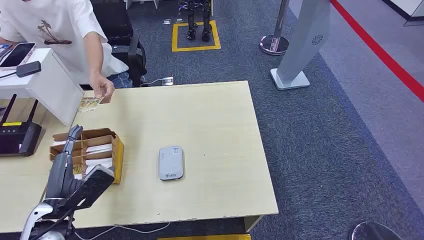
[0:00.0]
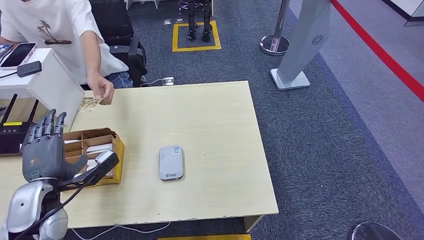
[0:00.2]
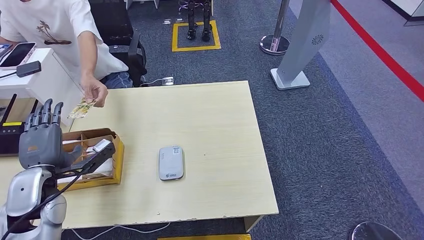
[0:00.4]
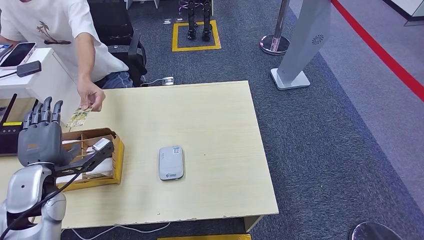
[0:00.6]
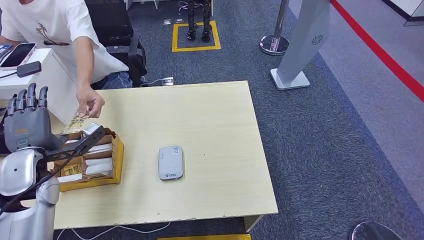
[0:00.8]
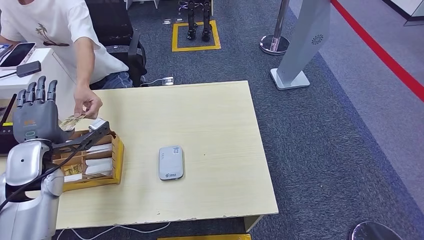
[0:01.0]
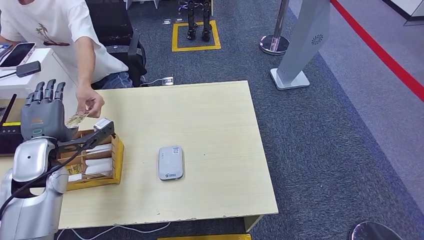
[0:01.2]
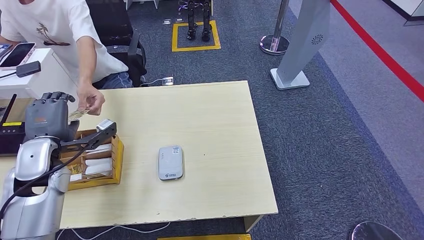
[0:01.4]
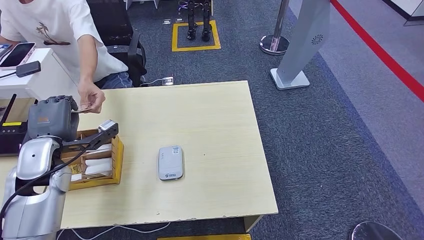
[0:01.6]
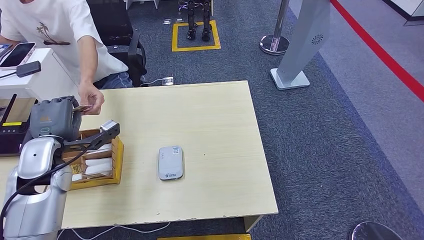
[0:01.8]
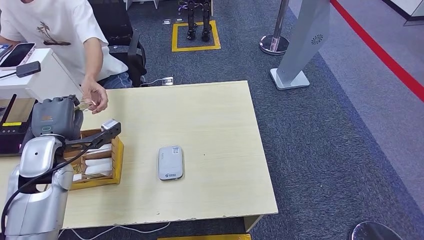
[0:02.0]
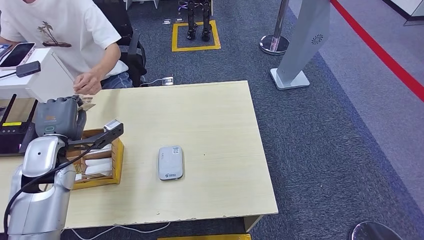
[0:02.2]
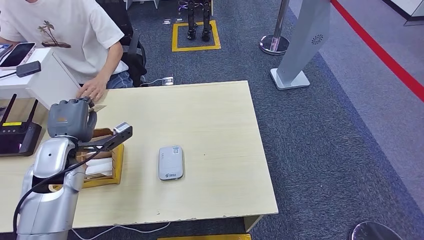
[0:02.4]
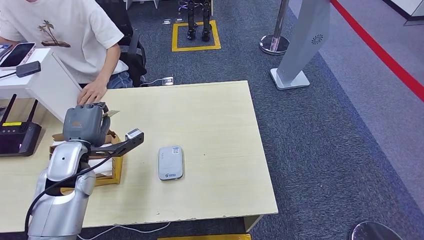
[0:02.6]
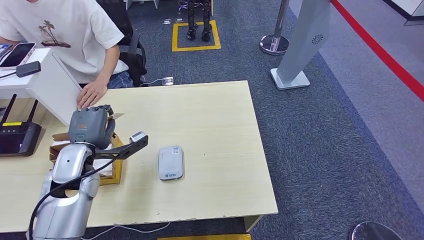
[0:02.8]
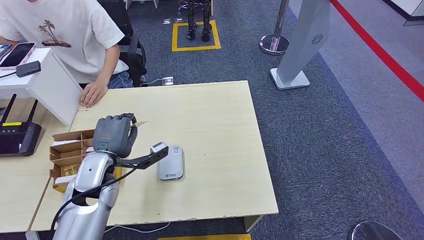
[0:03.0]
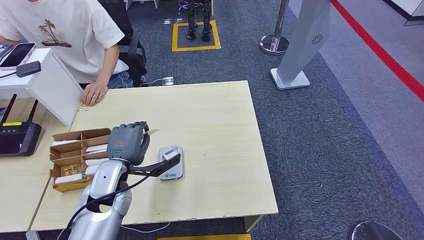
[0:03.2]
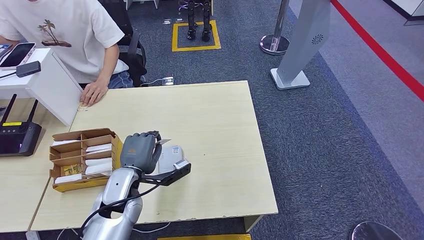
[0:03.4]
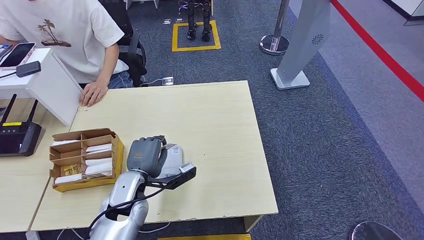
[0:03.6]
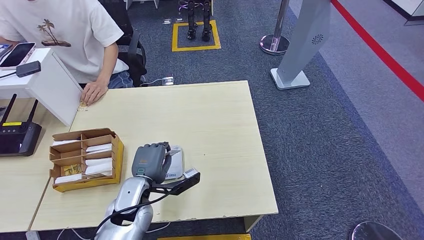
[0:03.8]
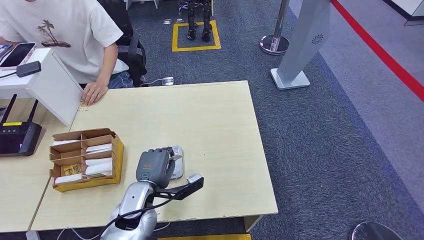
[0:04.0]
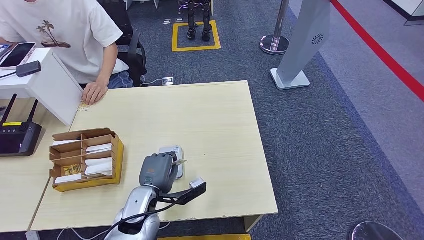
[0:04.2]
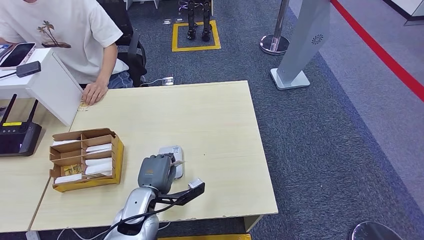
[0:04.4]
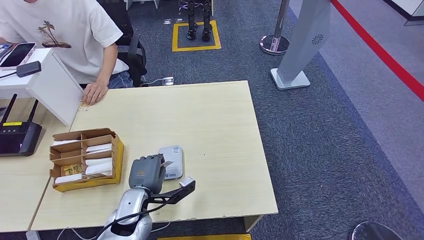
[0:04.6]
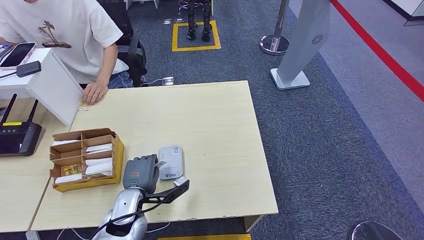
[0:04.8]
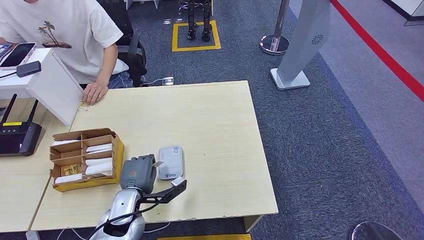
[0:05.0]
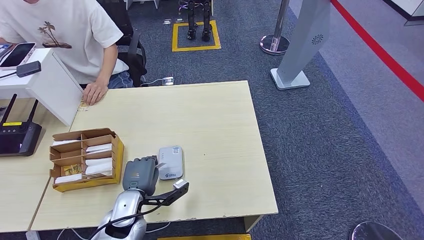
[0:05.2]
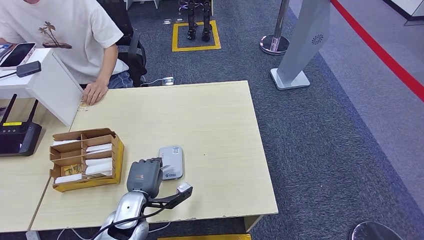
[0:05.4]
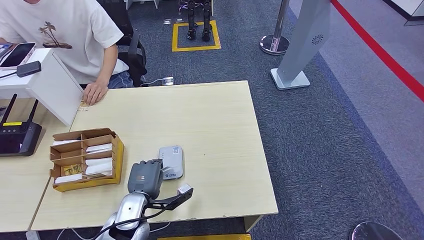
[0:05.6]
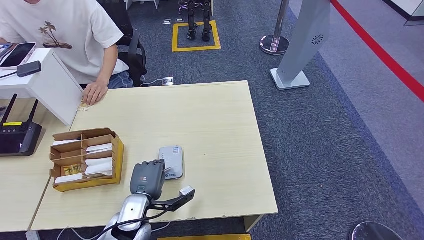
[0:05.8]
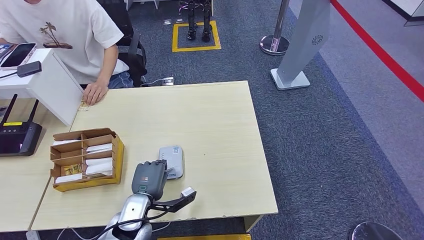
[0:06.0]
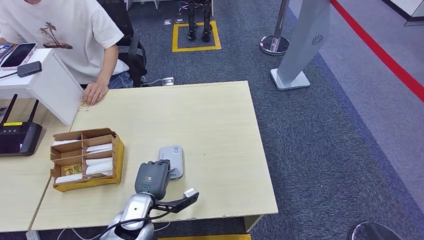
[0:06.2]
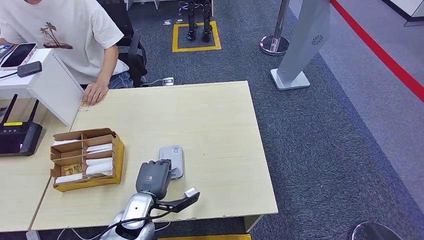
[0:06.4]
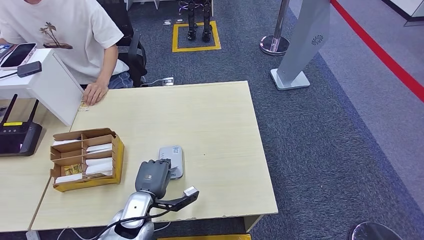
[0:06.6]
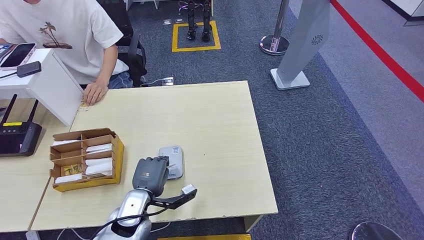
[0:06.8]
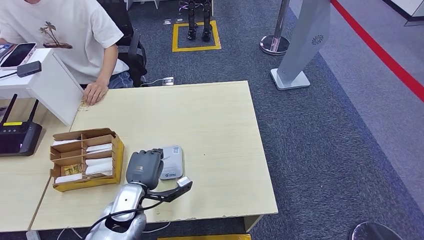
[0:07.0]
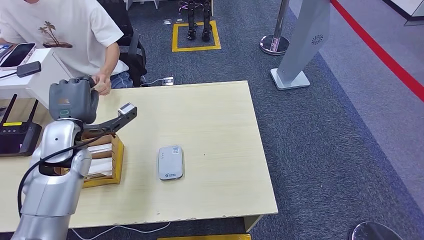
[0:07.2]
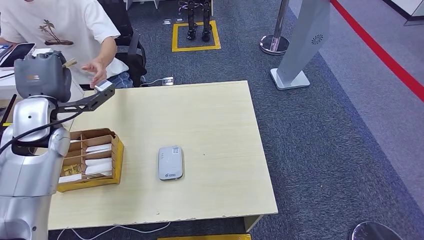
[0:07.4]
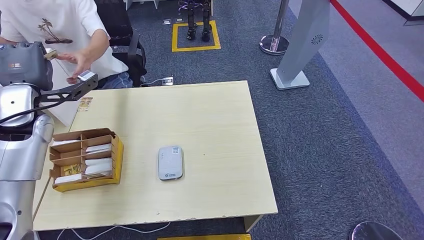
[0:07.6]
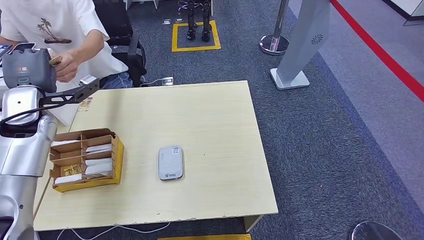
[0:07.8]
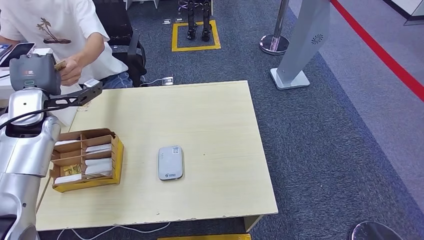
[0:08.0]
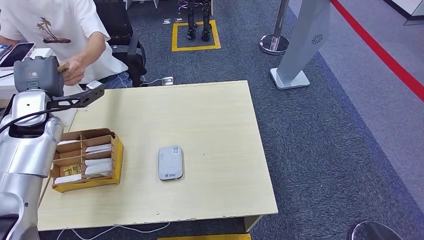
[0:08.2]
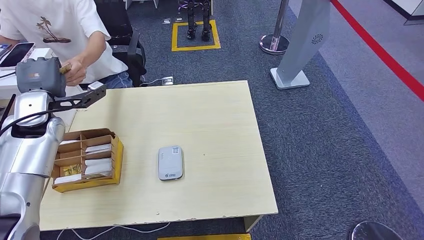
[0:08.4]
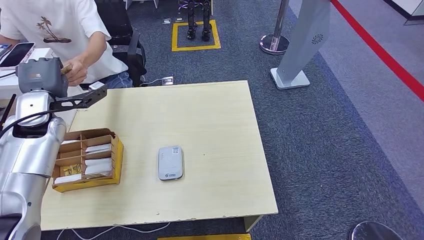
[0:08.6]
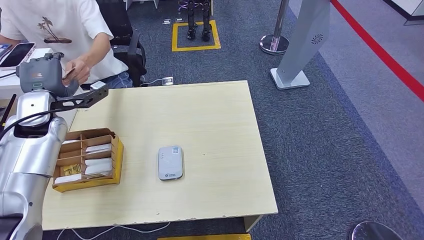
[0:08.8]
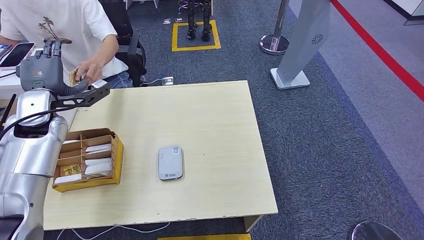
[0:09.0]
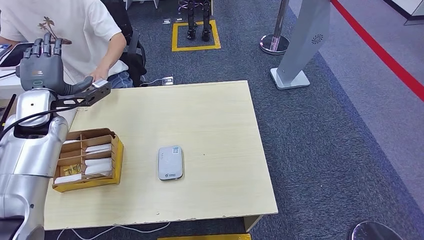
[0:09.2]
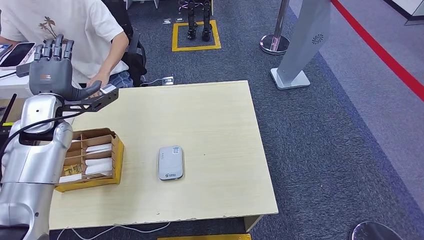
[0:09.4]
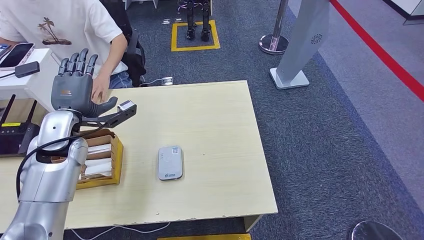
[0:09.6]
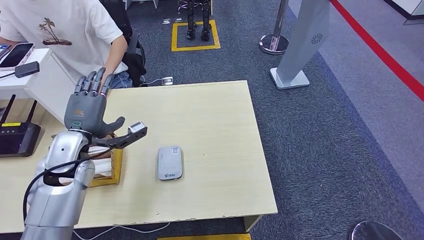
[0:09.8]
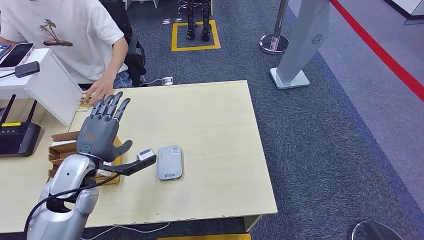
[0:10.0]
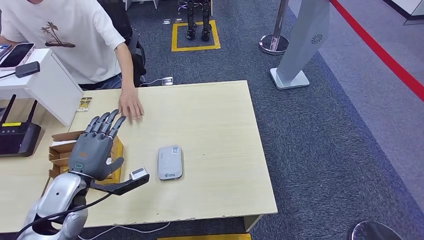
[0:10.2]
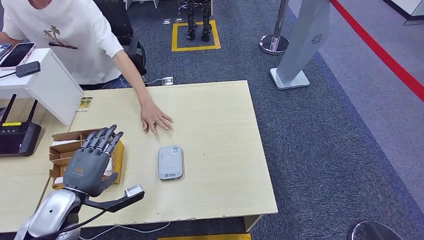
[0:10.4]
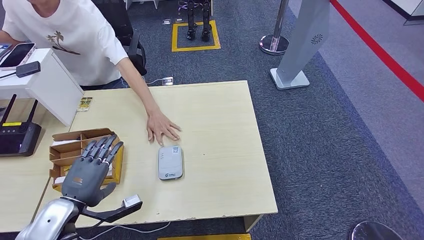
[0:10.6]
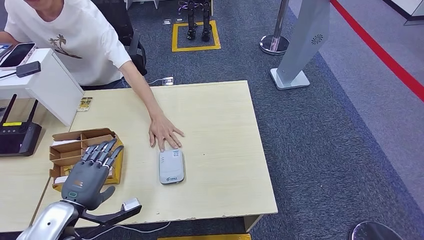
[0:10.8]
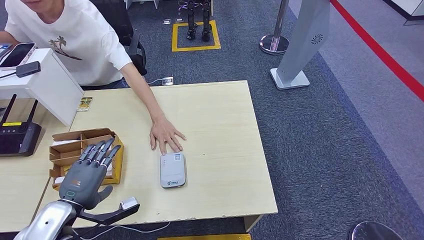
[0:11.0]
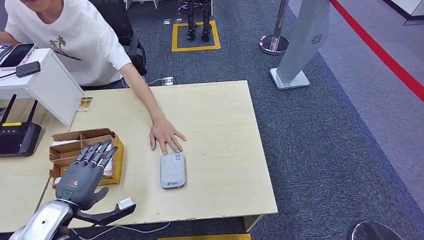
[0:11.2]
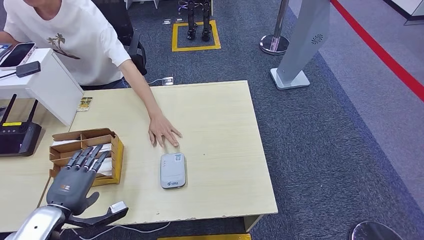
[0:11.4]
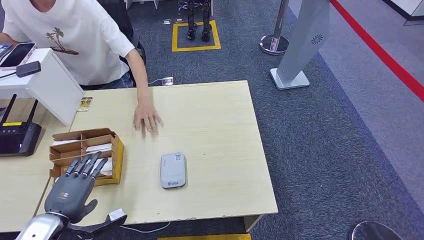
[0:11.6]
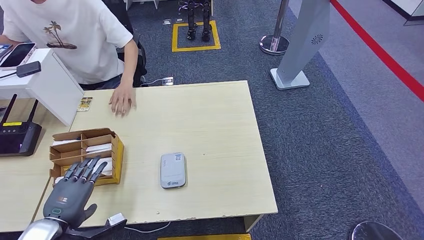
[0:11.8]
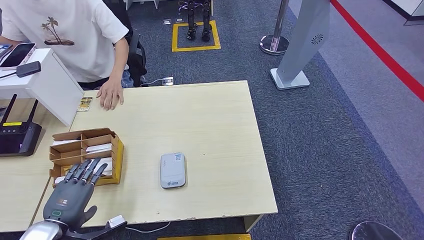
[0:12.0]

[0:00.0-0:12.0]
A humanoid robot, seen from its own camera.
Step, 0:00.0 to 0:03.4: Take the ID card from the person's hand.
Step, 0:03.6 to 0:05.6: Place the ID card on the card reader.
Step, 0:05.8 to 0:08.6: Hand the ID card to the person.
0:01.6 to 0:03.0: The left hand heads to the right, covering some 10 cm.
0:03.0 to 0:04.4: The left hand goes some 15 cm to the right, downward and backward.
0:04.4 to 0:06.0: The hands move only a little.
0:06.0 to 0:07.6: The left hand heads upward, to the left and forward, covering some 35 cm.
0:07.6 to 0:09.0: The hands move only a little.
0:09.0 to 0:10.4: The left hand moves backward and downward, approximately 25 cm.
0:10.4 to 0:12.0: The left hand travels backward by roughly 5 cm.

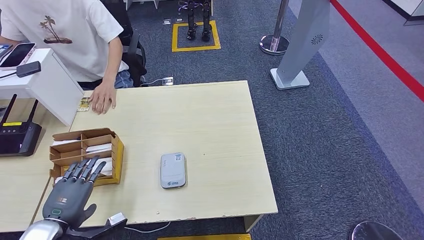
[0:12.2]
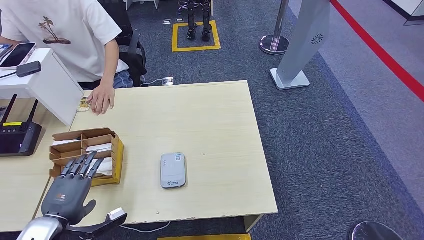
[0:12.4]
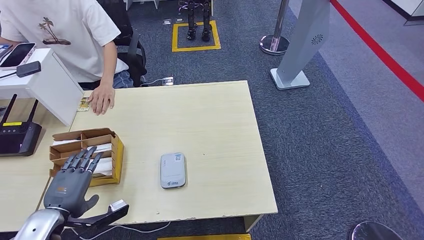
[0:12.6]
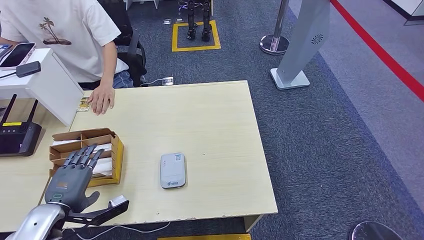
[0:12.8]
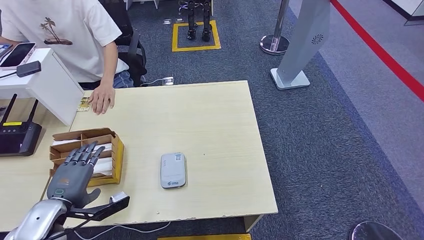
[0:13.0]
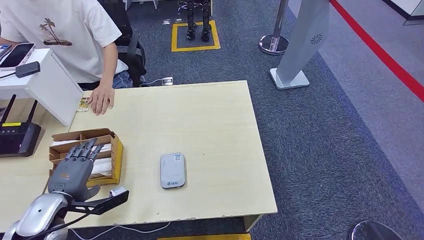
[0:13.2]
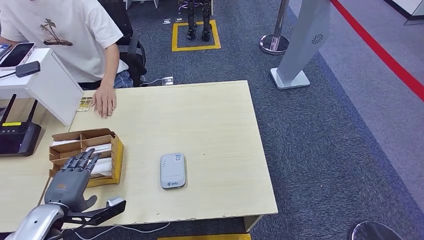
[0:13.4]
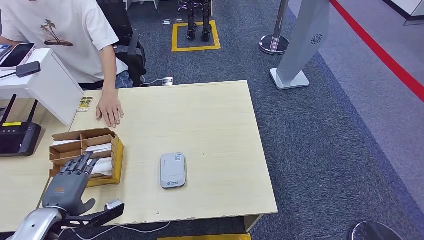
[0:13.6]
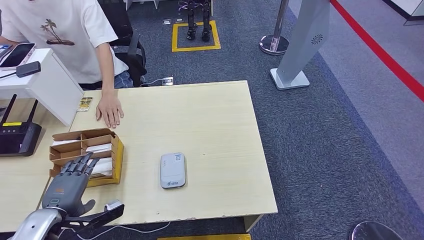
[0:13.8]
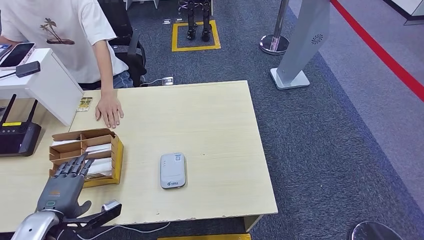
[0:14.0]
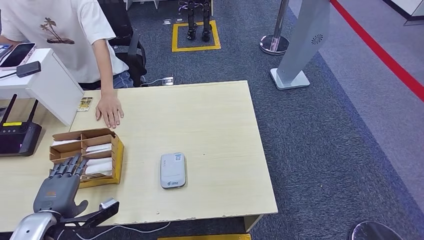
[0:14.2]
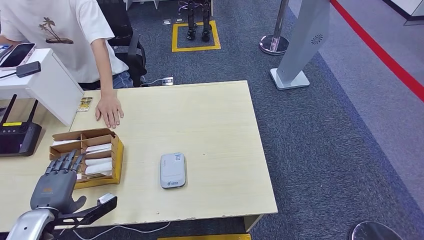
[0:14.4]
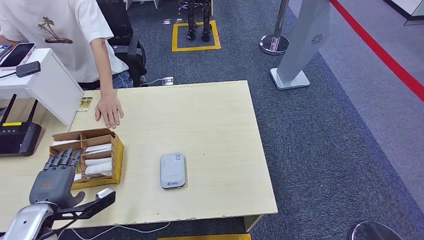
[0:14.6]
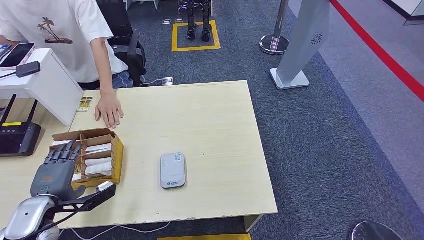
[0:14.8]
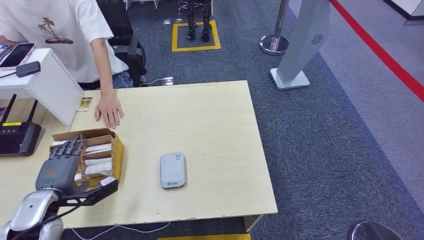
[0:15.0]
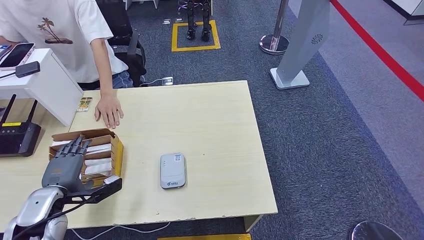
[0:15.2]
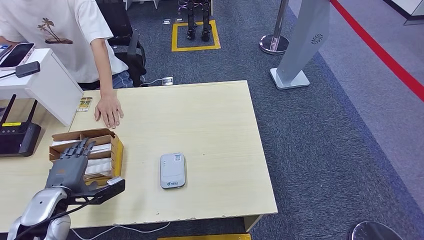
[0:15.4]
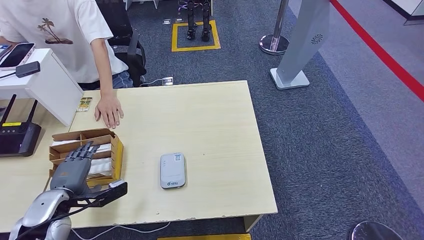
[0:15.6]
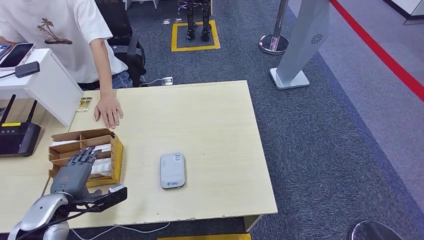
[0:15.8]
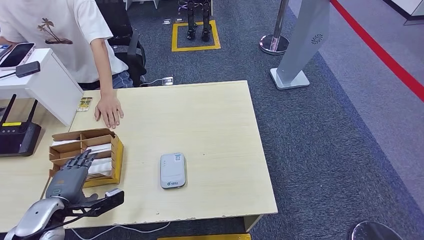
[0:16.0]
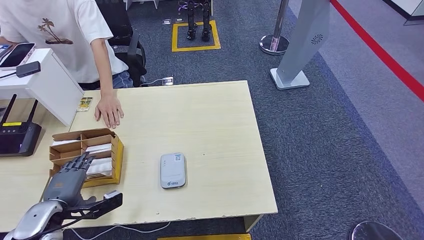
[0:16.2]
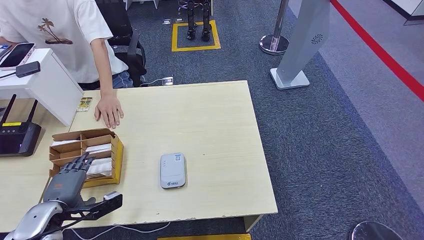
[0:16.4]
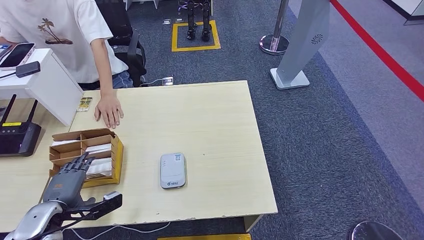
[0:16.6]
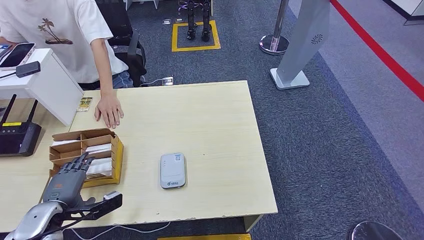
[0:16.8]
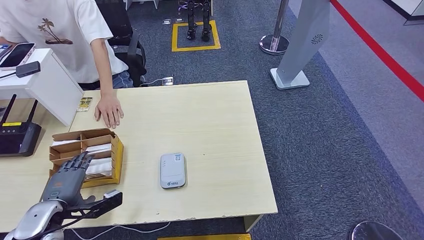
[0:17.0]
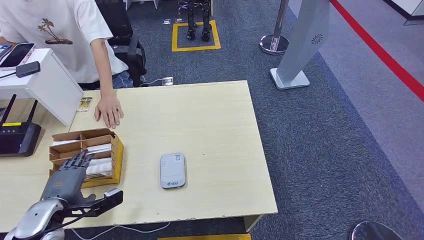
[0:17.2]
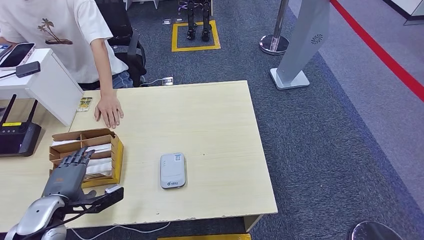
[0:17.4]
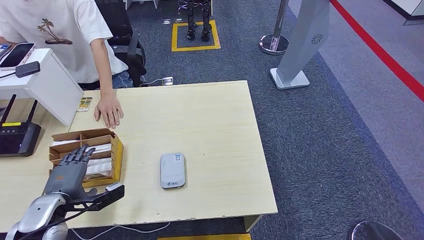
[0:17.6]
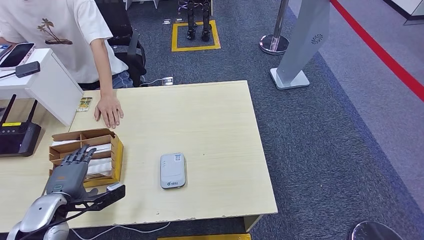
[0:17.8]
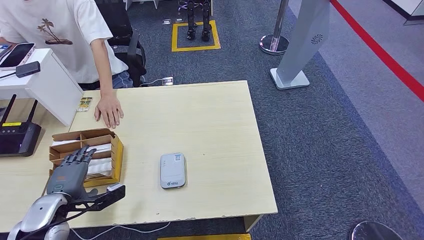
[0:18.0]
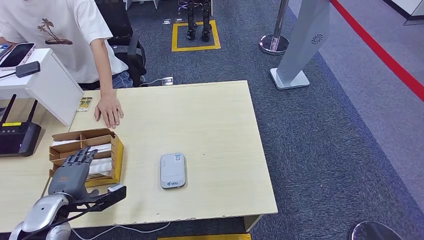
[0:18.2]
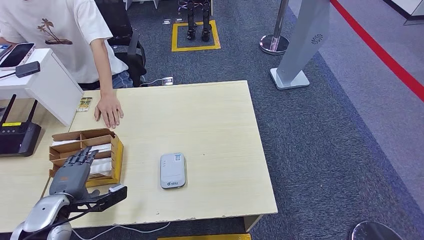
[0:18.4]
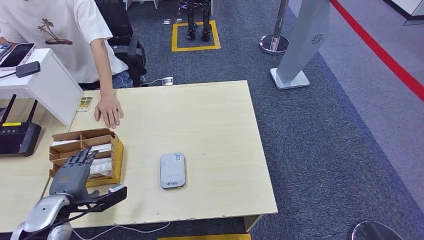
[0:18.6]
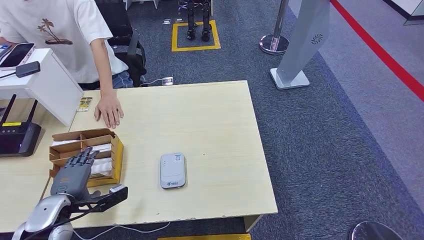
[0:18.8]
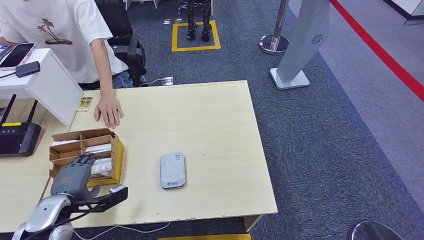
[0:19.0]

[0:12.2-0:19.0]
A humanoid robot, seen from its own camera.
0:12.2 to 0:13.6: The hands make only small movements.
0:13.6 to 0:17.6: The hands stay close to where they were, moving slightly.
0:17.6 to 0:19.0: Neither hand changes place.
